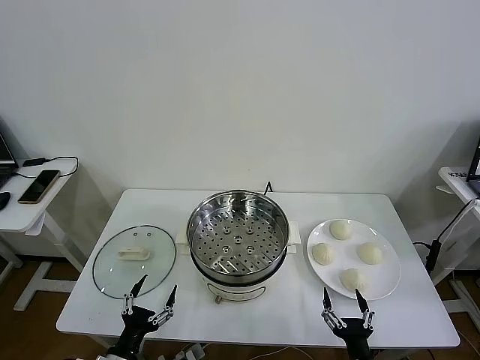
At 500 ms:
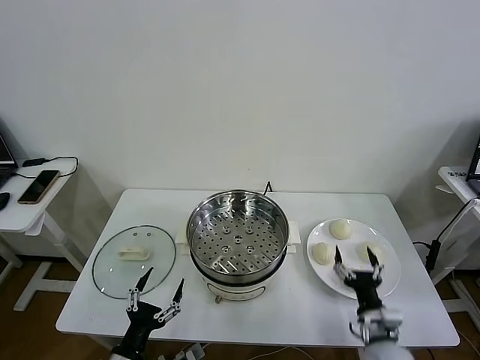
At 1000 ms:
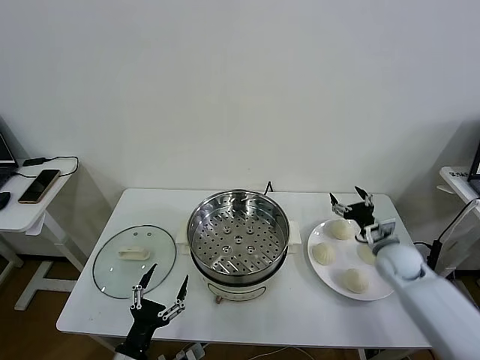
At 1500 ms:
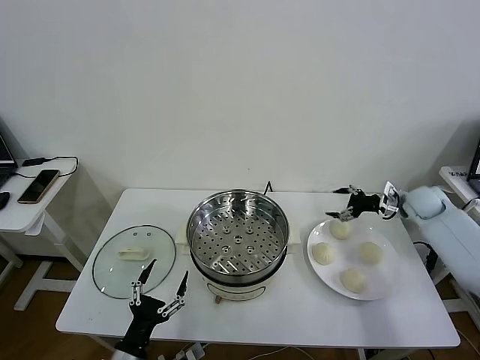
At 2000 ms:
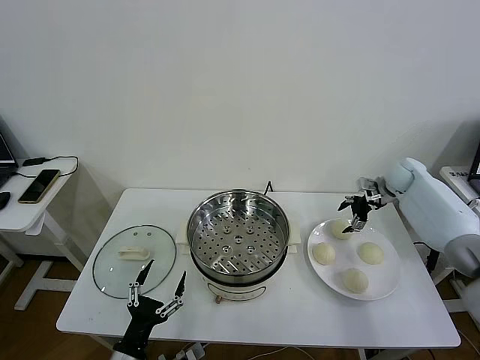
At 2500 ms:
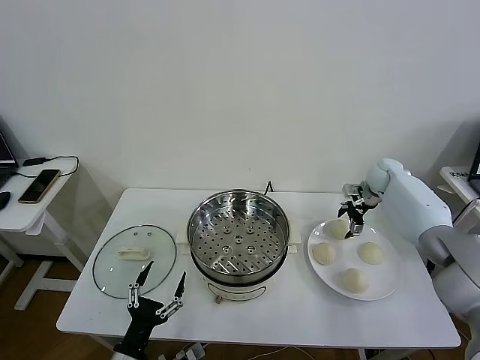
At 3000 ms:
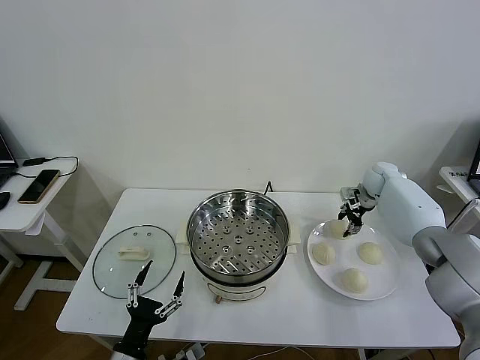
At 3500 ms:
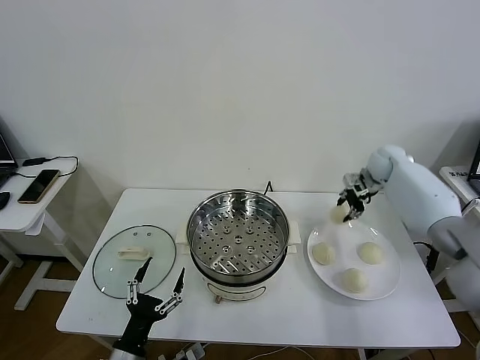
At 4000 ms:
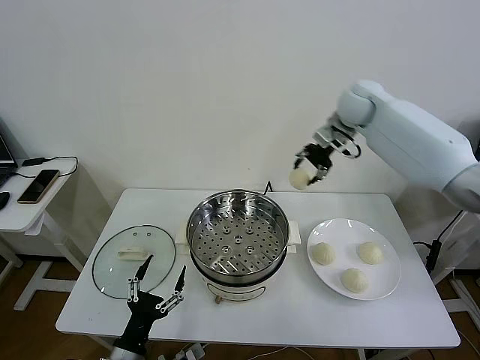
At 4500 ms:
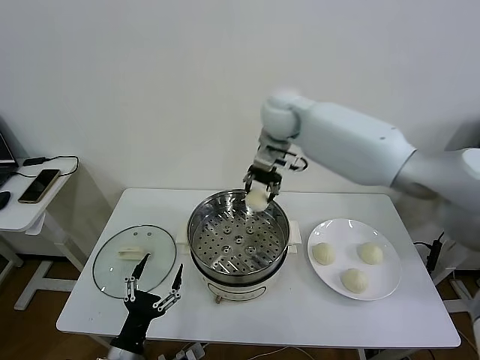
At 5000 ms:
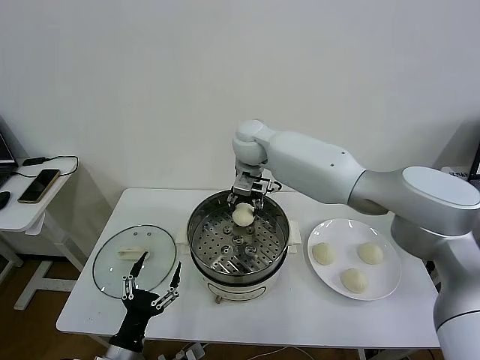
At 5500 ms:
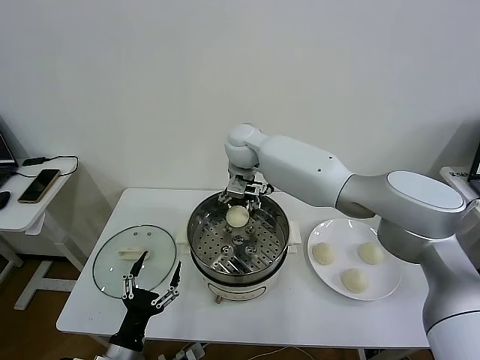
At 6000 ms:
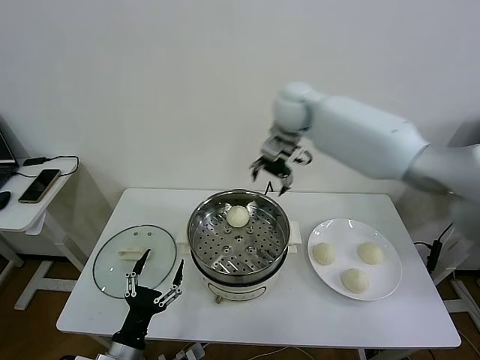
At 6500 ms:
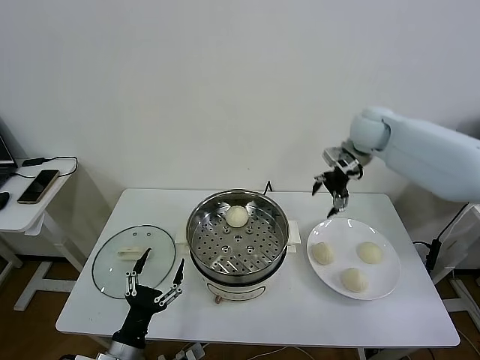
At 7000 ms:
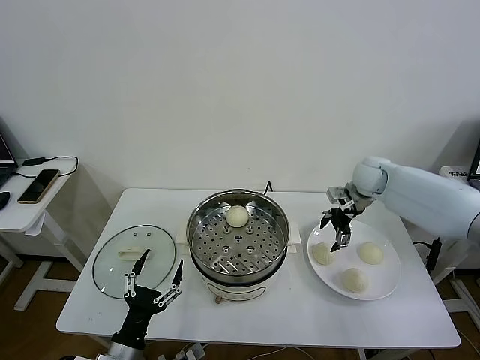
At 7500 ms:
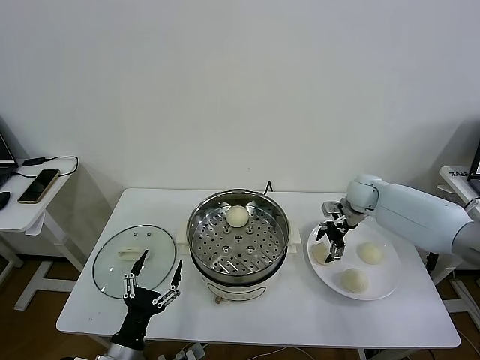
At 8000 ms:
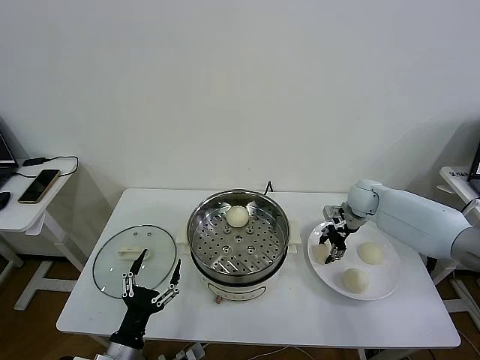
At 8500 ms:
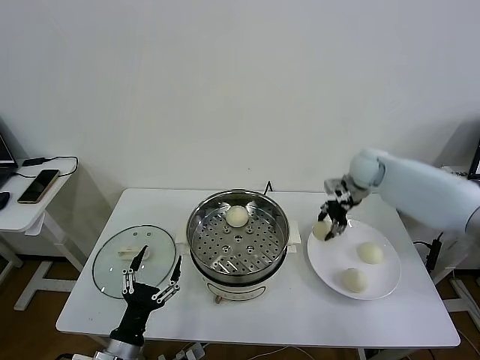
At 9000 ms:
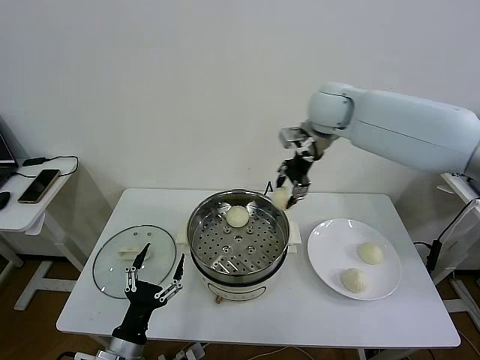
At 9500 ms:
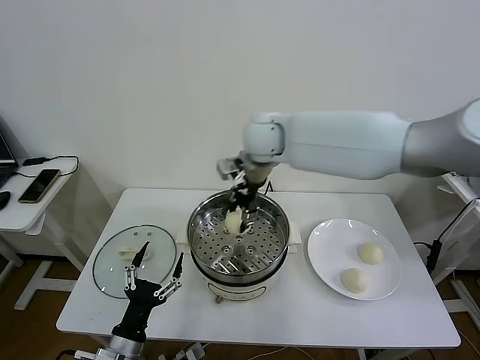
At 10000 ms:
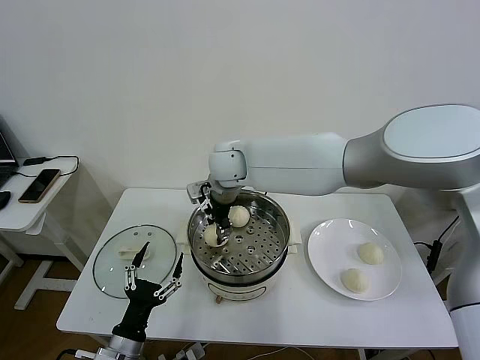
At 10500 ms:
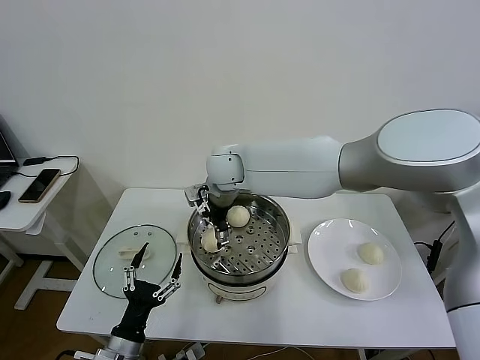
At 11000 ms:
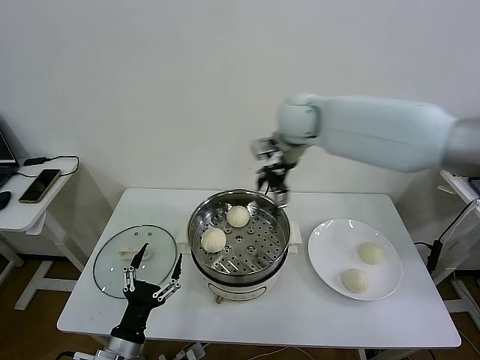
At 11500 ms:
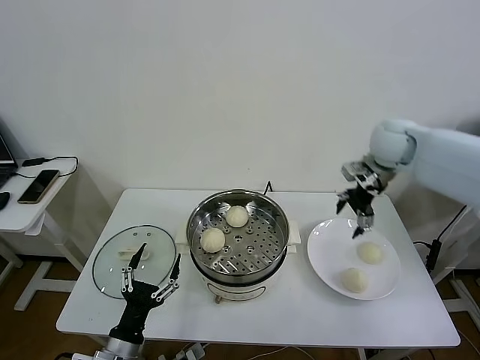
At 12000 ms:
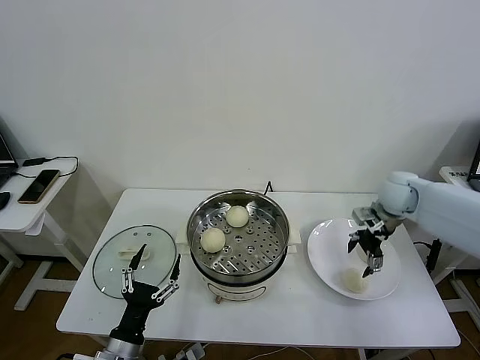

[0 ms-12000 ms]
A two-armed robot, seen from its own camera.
Task of the whole recording: take steamed baozi put them in steamer then cover it.
Step, 0 ms to 3000 ms: Grasp the baozi in the plate with right gripper.
Step, 3500 ms to 5000 ms: Place the baozi on the steamer with right gripper.
Step, 5500 ms to 7500 ms: Grasp the baozi in the plate with right gripper.
Step, 8000 ms to 10000 ms: Place the baozi on the steamer with right gripper.
2000 ms to 4000 ms: The right gripper is displaced upward and to the left by some 30 cm, and closes its fingers.
4000 ms to 6000 ms: The right gripper travels to the left and back again, some 20 cm each way, and opens its fingers.
6000 ms to 8000 ms: The right gripper goes approximately 30 cm downward and to the right, and closes.
8000 ms to 10000 ms: The right gripper shifts roughly 40 cm to the left and upward.
10000 ms to 12000 ms: The right gripper shifts approximately 40 cm to the right, and opens its fingers.

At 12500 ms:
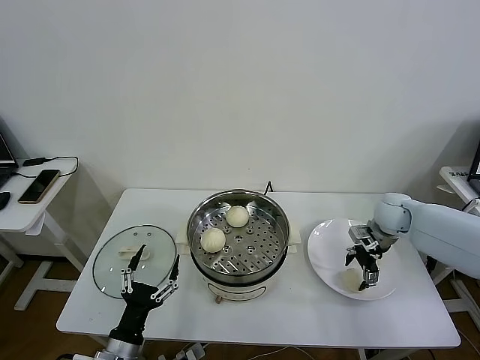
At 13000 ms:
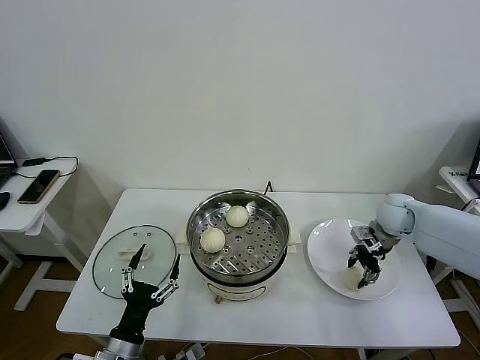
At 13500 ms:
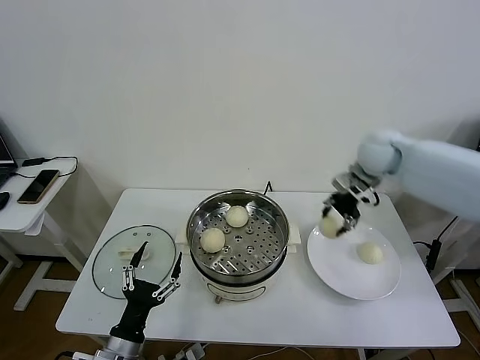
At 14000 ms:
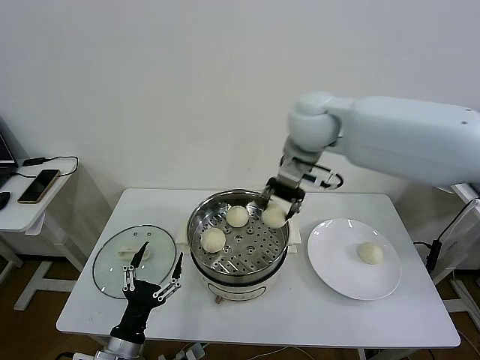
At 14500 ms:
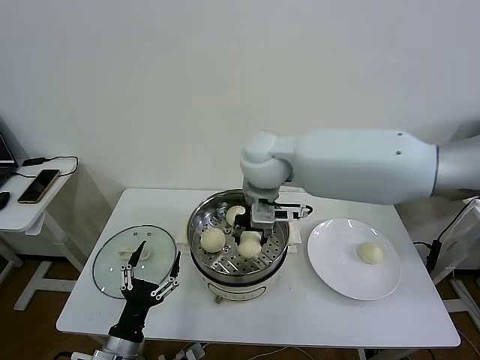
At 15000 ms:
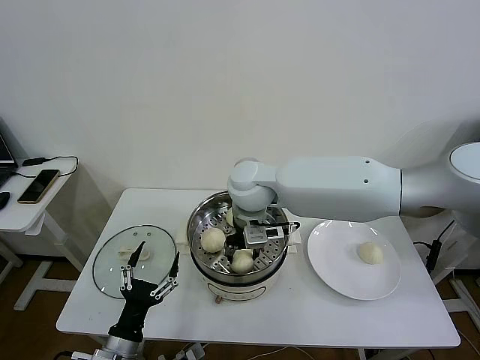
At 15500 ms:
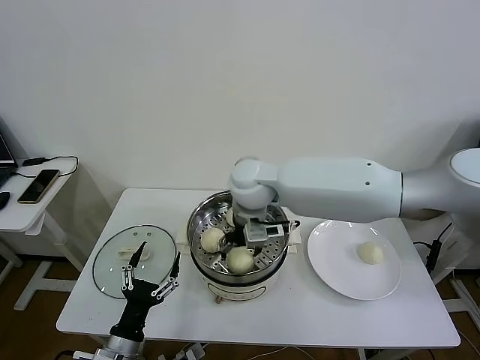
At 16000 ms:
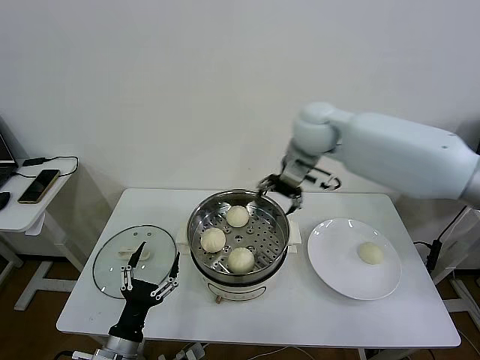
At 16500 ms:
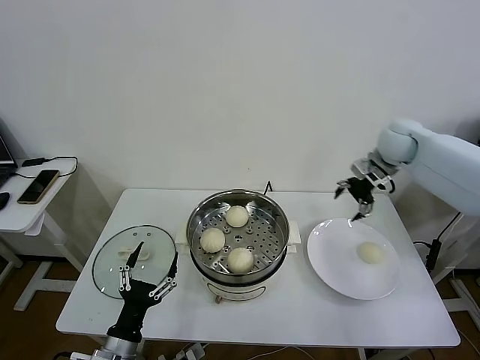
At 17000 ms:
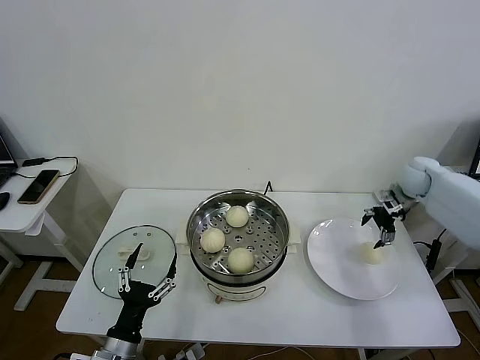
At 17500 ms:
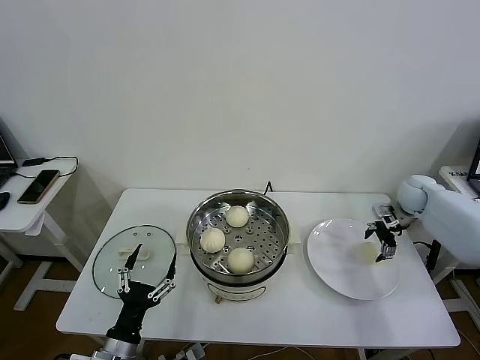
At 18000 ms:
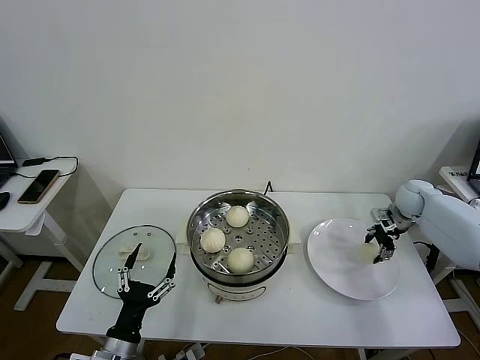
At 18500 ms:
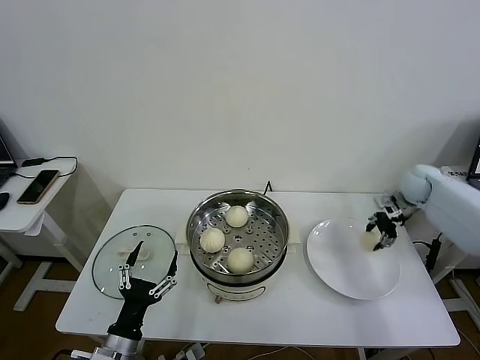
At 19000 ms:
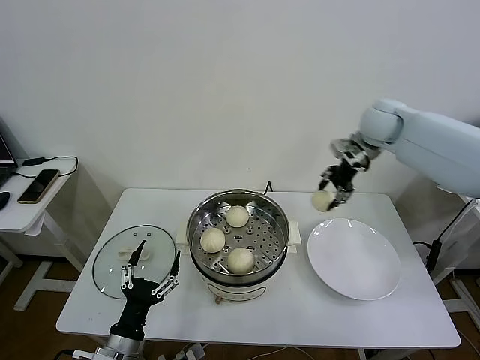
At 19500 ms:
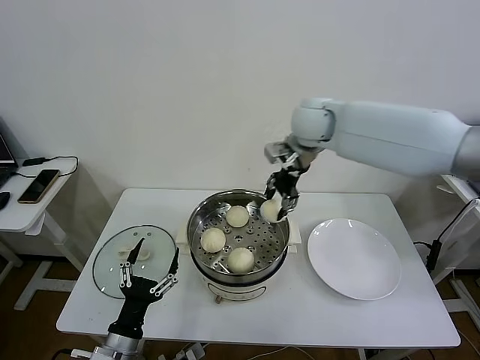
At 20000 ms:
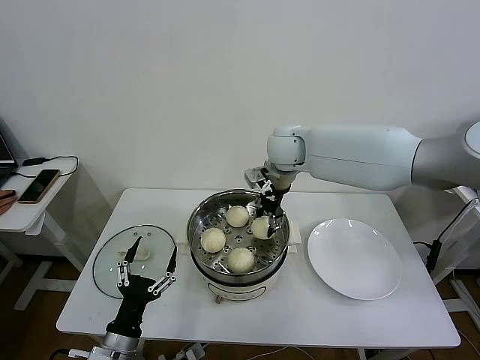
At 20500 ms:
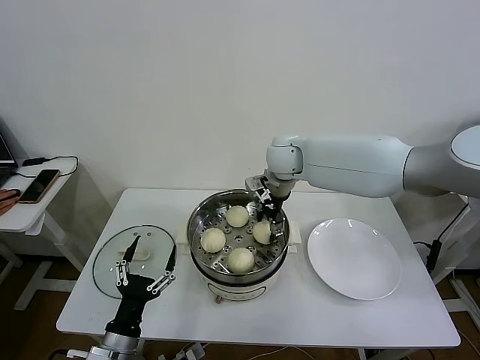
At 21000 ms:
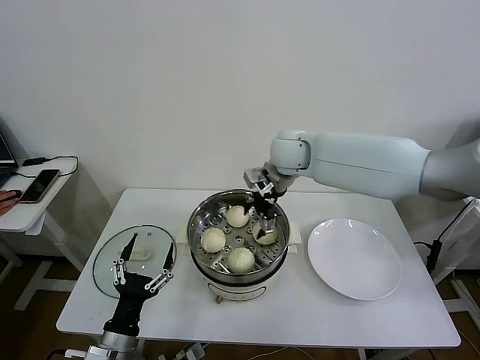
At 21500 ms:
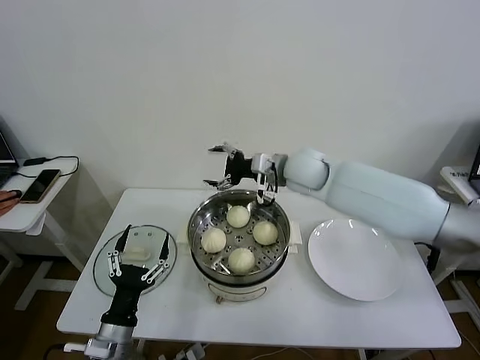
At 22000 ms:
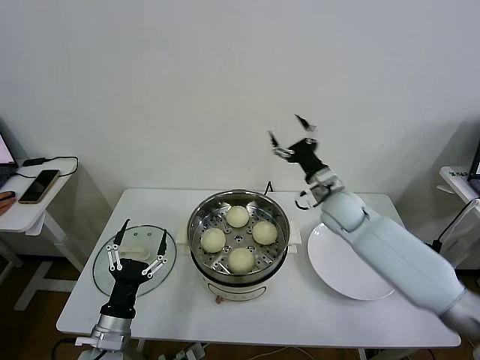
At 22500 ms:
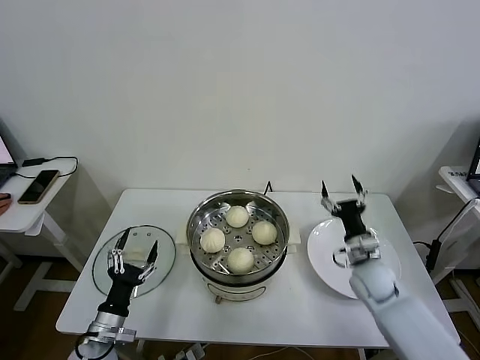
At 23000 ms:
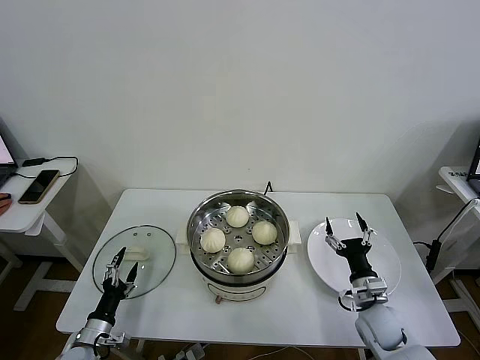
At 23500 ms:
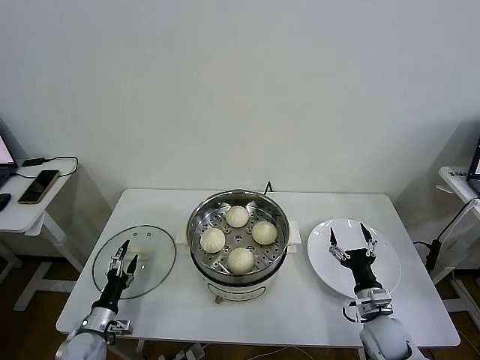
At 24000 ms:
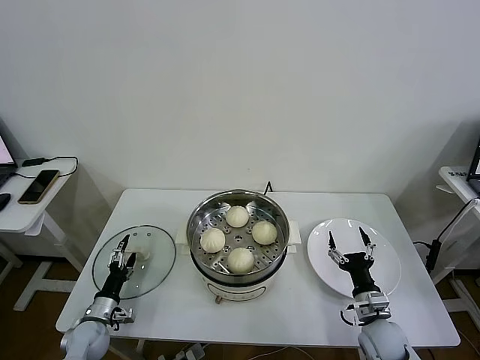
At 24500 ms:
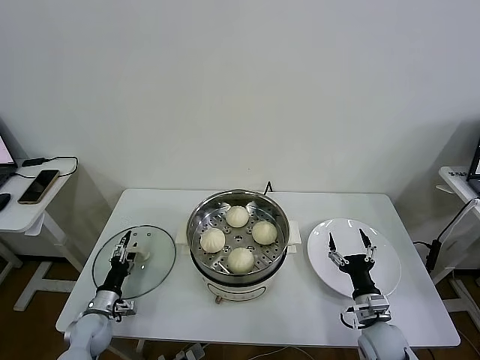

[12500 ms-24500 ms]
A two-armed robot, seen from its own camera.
Task of the whole recording: take steamed baozi put them in steamer then cover it.
Step, 13000 ms to 15000 ms: Place the baozi on the steamer with right gripper.
Step, 15500 ms to 18000 ms: Grasp the baozi in the plate with right gripper.
Step, 18500 ms to 20500 ms: Place the baozi on the steamer with right gripper.
12500 ms to 14500 ms: The right gripper travels to the left and upward by approximately 40 cm, and closes up.
14500 ms to 16500 ms: The right gripper shifts roughly 35 cm to the right, and opens.
16500 ms to 18500 ms: The right gripper heads downward and to the right, covering about 15 cm, and closes its fingers.
18500 ms to 20500 ms: The right gripper heads to the left, covering roughly 35 cm, and opens.
20500 ms to 22500 ms: The right gripper heads downward, to the right and backward, covering roughly 35 cm, and opens up. The left gripper travels forward and to the left by roughly 5 cm.
22500 ms to 24500 ms: The left gripper moves downward, forward and to the left, roughly 15 cm; the right gripper goes approximately 15 cm backward and downward.

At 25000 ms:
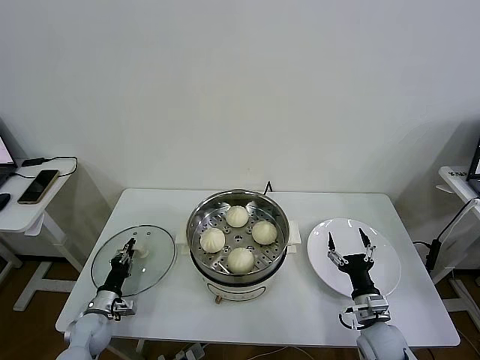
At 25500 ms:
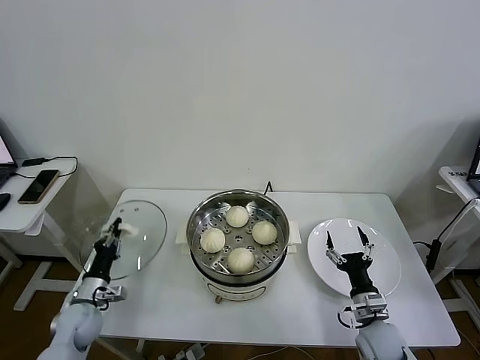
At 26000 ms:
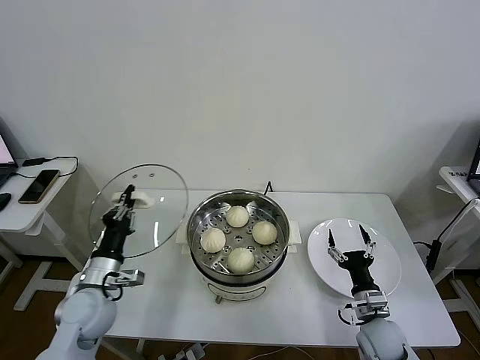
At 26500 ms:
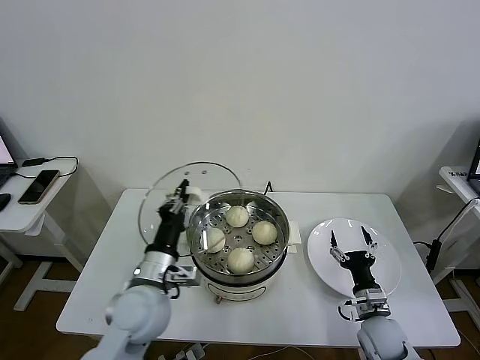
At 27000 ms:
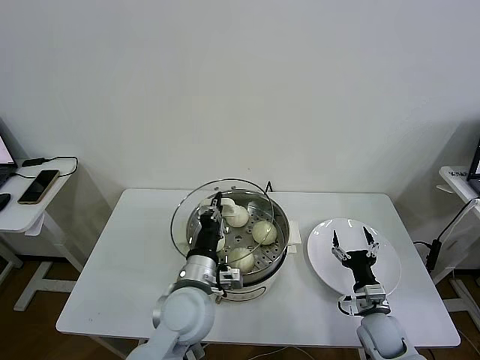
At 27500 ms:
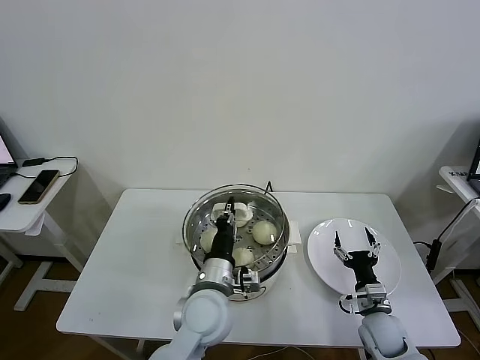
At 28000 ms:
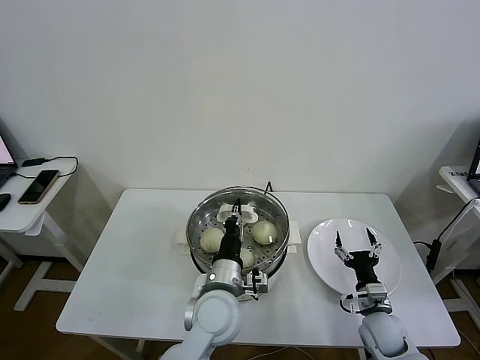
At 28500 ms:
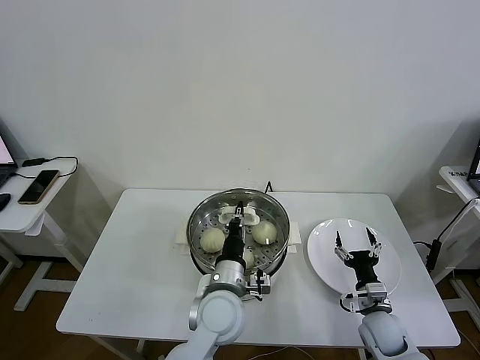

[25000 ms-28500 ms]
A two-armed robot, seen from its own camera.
Task of the whole recording: take steamed baozi put them in steamer then cover it.
25000 ms to 27000 ms: The left gripper goes some 35 cm to the right and upward.
27000 ms to 28500 ms: The left gripper travels to the right by roughly 5 cm.
